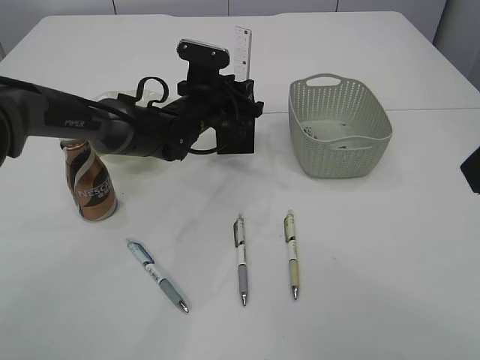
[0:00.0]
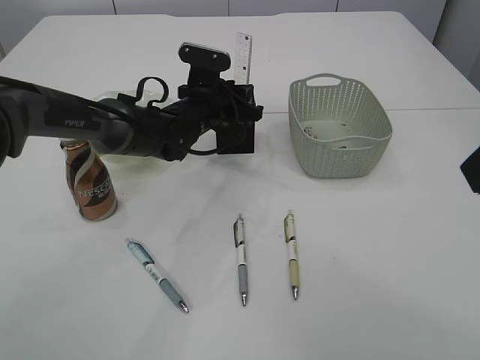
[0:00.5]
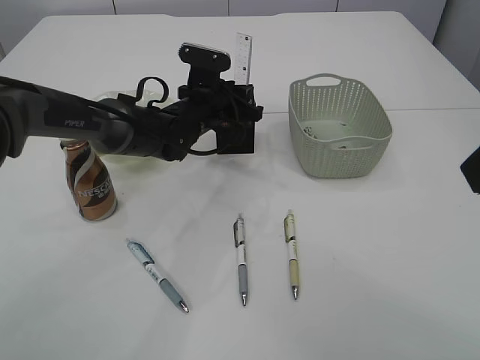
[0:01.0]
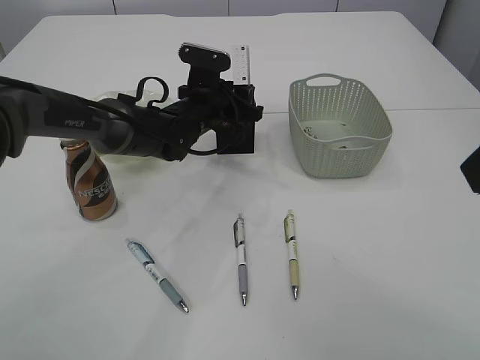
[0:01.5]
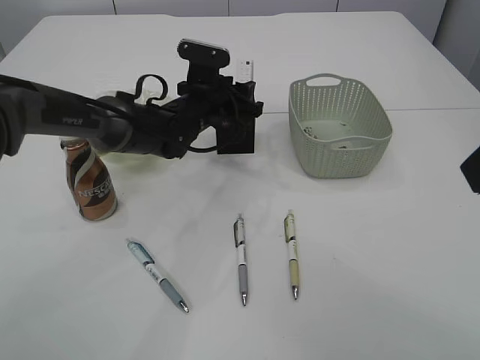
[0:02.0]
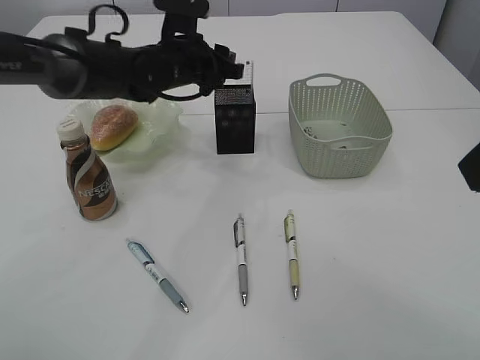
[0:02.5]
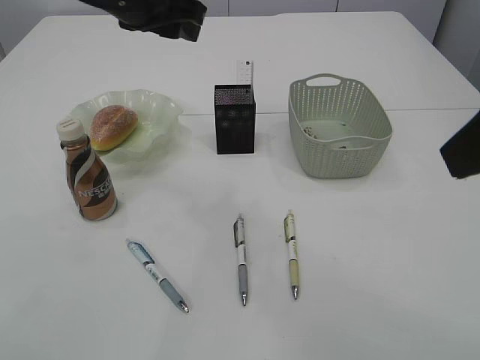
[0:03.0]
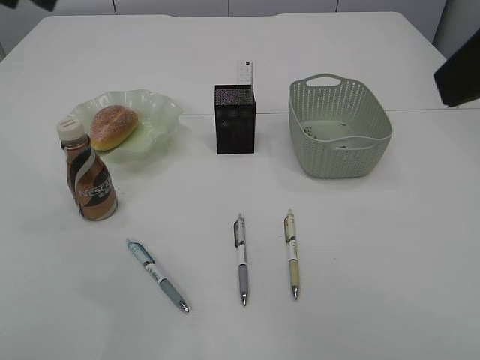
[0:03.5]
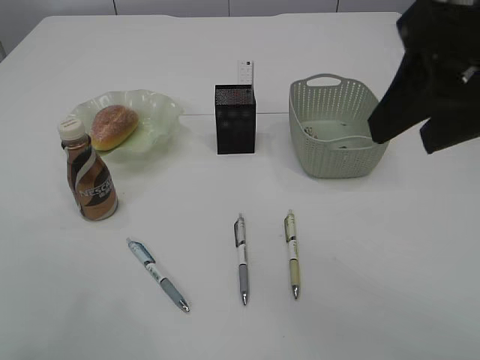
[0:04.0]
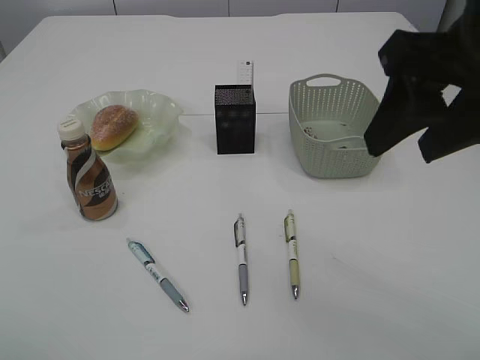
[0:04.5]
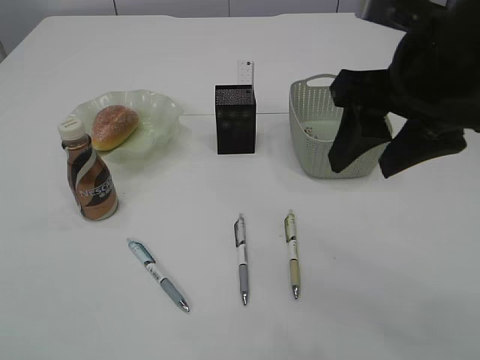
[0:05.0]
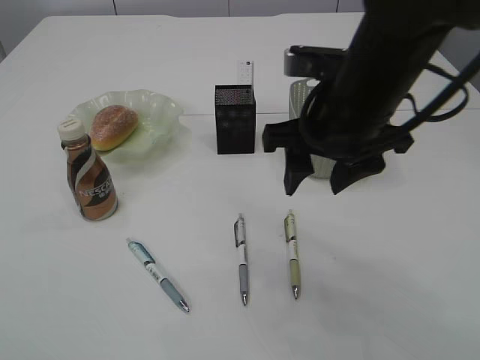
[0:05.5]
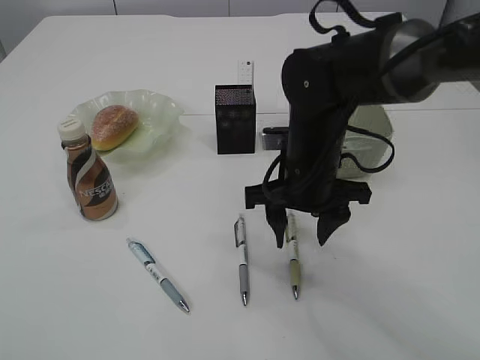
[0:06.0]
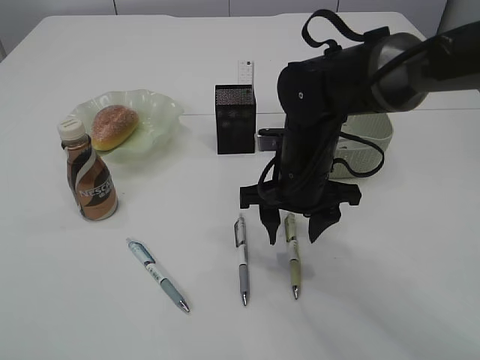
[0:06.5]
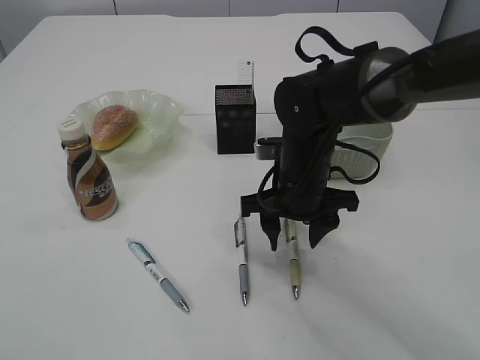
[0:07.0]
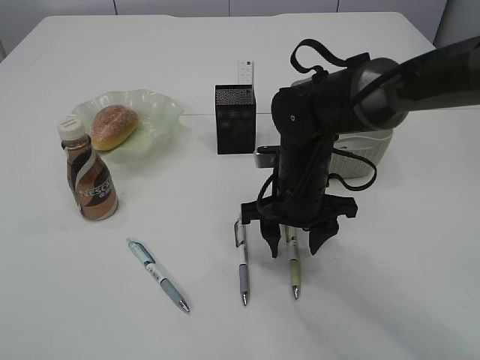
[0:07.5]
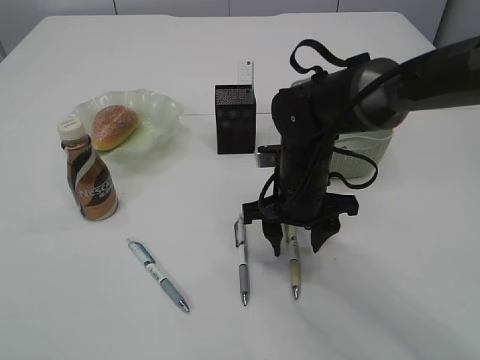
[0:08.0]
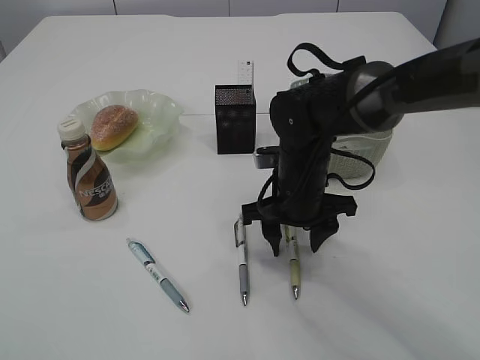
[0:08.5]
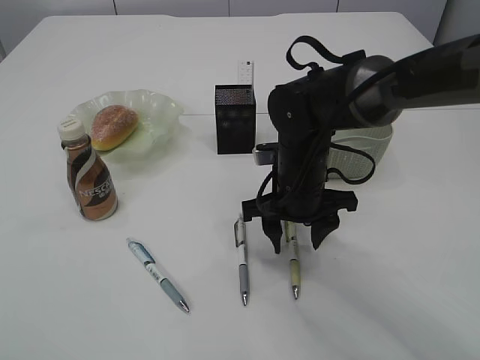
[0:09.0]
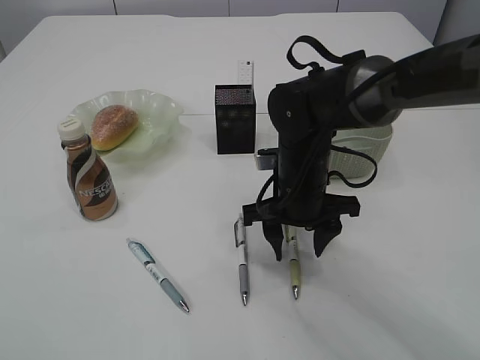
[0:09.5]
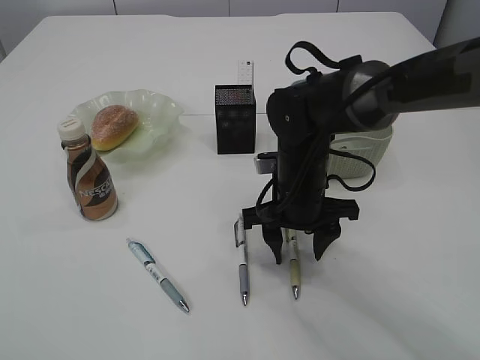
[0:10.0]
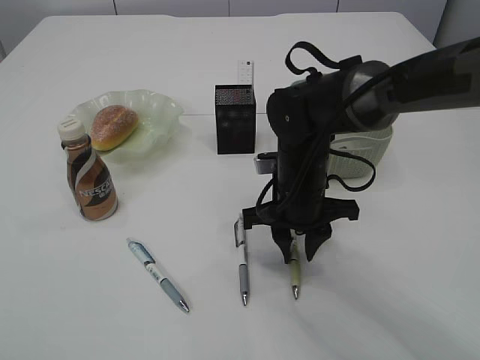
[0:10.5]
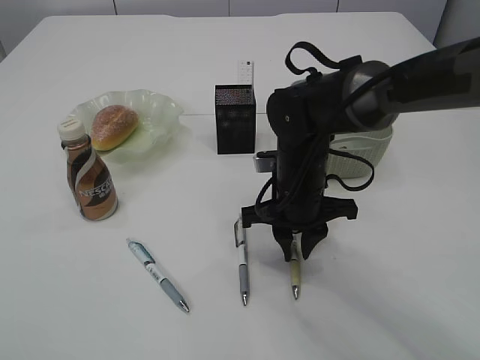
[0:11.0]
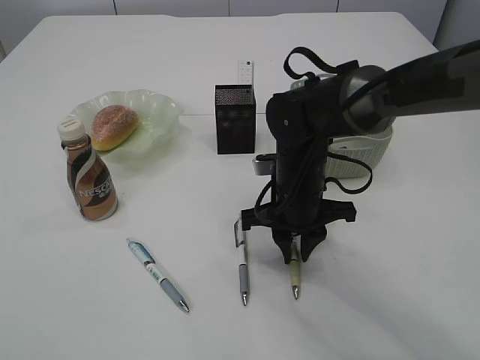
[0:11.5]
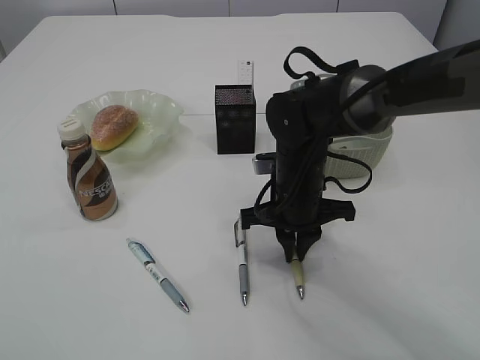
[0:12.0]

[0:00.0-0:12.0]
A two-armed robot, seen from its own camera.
Step, 0:00.0 to 0:02.5: Place the ruler into the pen holder.
0:00.0 to 0:02.0: Both grippers stay about where they are.
0:02.0 to 0:04.0: The right gripper shifts by about 5 cm. Meanwhile the left gripper goes approximately 40 cm upward, backward and to the left.
0:04.0 to 0:06.0: The left gripper goes about 20 cm backward; the right gripper heads downward, forward and to the left, covering about 25 cm.
0:06.0 to 0:08.0: There are only small adjustments of the grippers.
0:08.0 to 0:10.0: The two grippers keep their place.
0:10.0 to 0:12.0: The right gripper closes up.

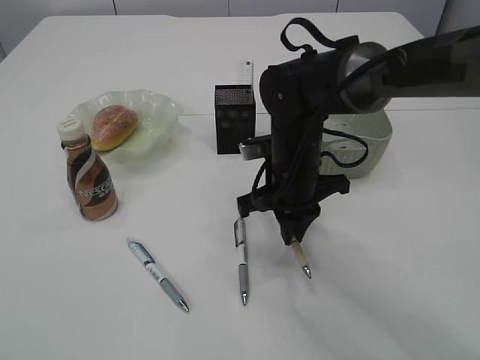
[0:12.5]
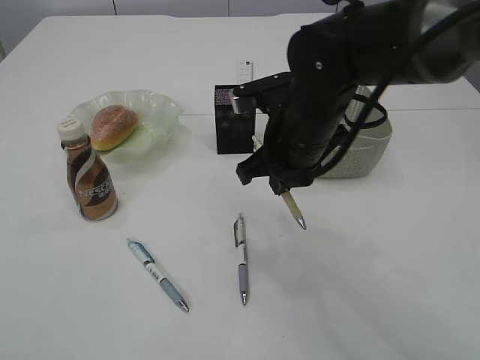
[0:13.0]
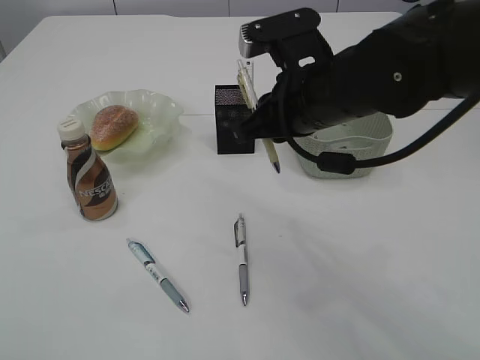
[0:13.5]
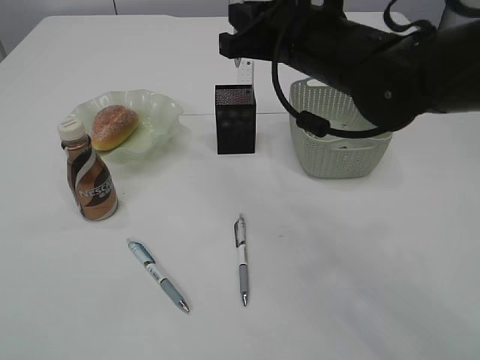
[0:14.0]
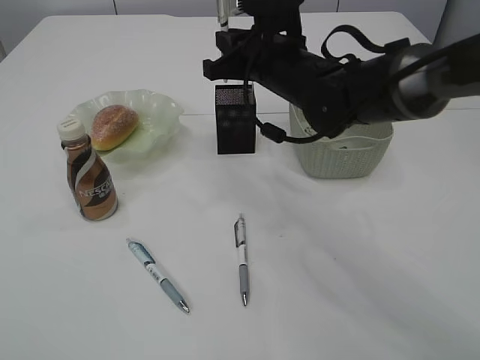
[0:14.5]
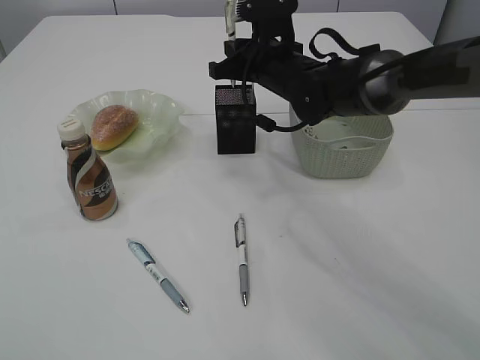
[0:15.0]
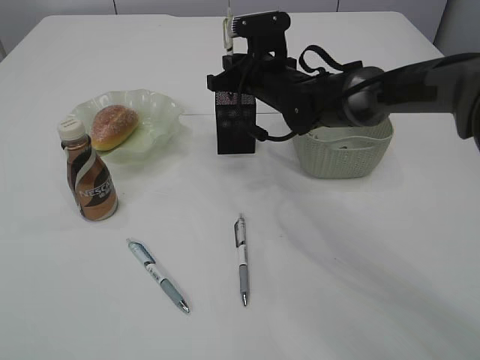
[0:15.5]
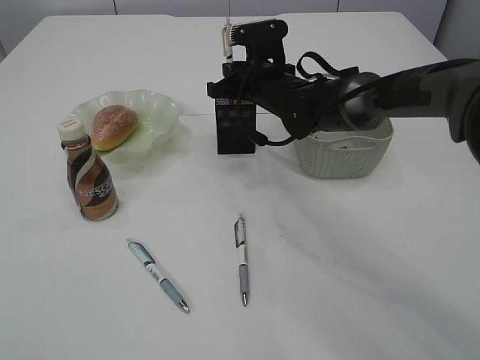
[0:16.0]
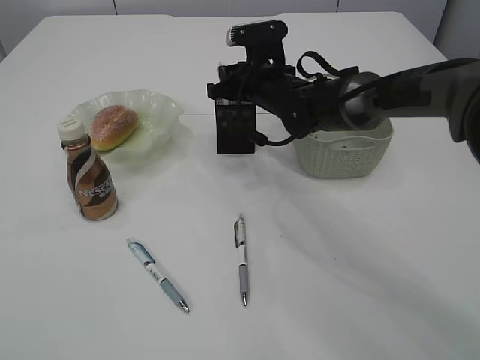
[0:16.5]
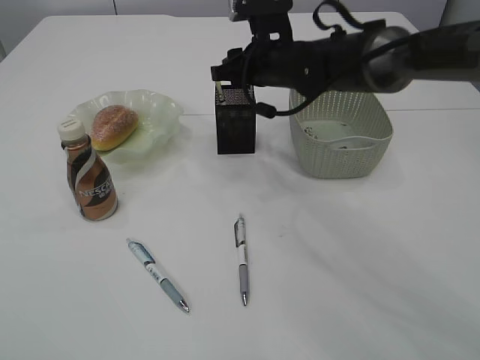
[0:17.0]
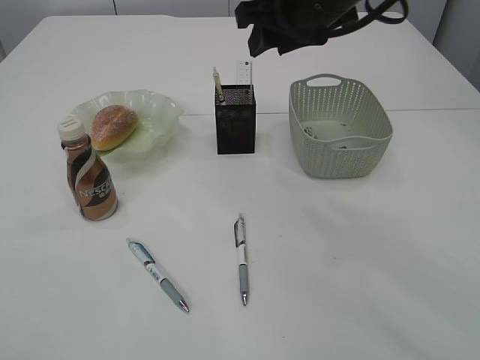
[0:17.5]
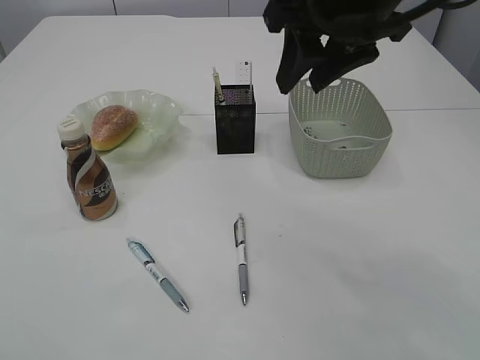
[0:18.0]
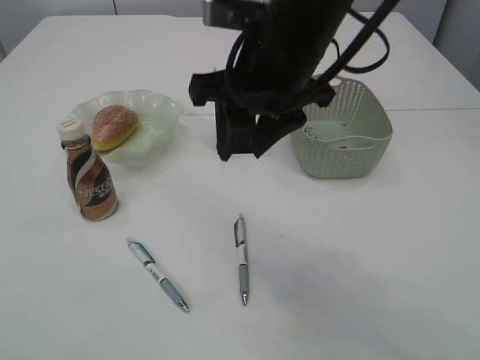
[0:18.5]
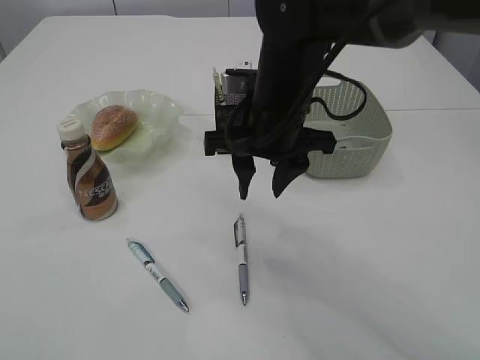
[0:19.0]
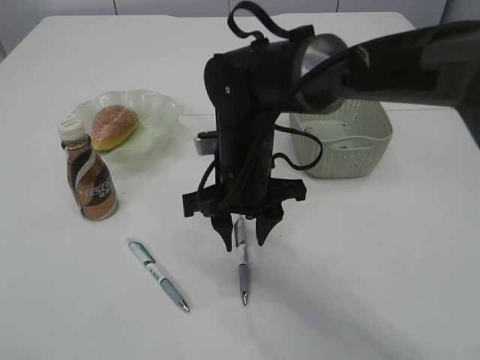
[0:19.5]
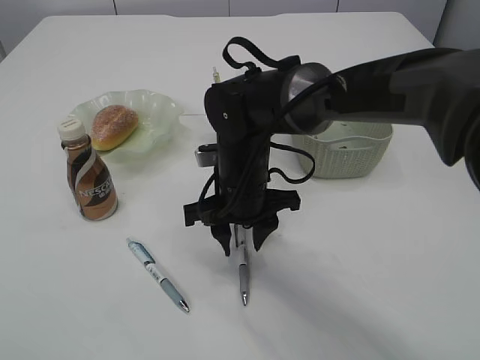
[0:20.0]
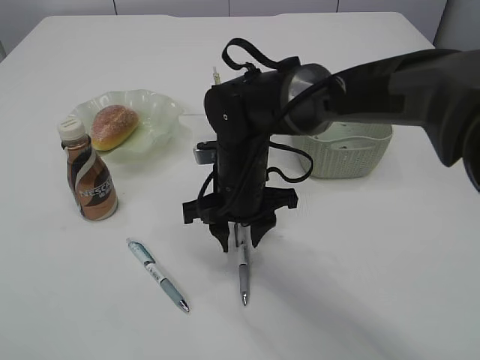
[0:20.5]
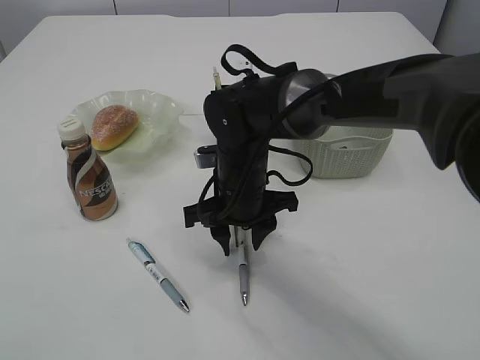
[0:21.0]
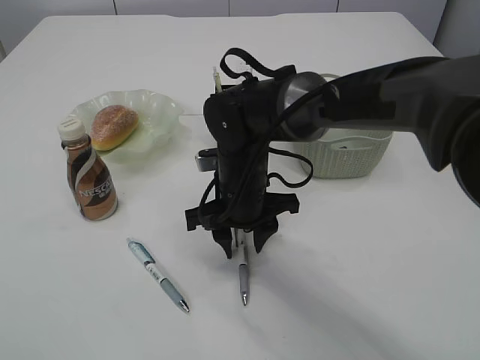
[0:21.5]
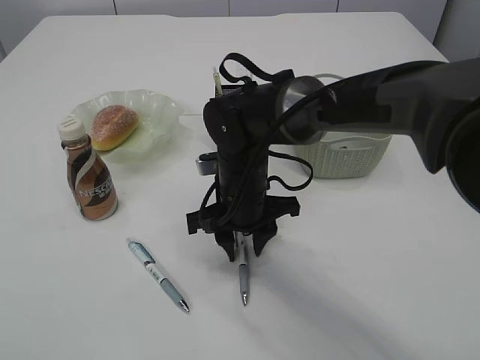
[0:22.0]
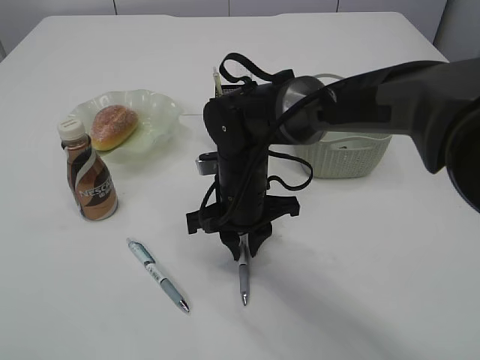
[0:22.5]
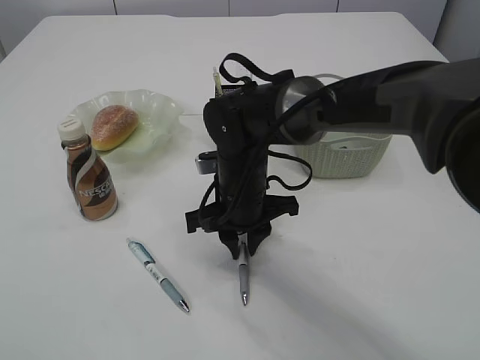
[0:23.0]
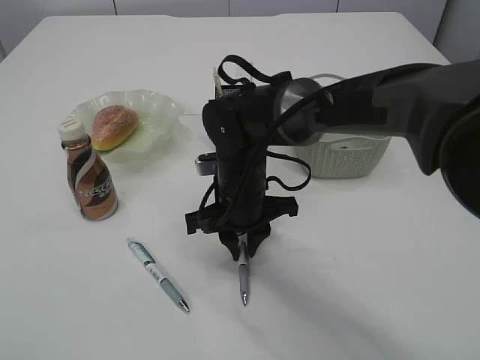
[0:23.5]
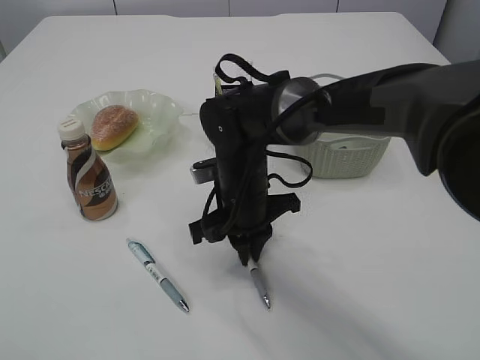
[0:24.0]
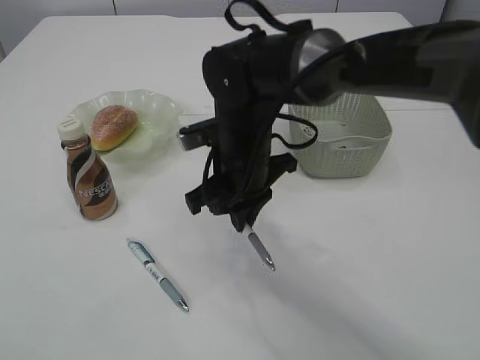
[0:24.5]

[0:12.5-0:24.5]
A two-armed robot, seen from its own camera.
Step, 0:13.0 to 0:17.0: Place the pen into the pen holder.
0:12.5 to 0:14.5: The right gripper is displaced upward and forward by approximately 10 cm.
0:14.5 to 0:16.5: The right gripper shifts some 10 cm forward and downward, and opens its fingers.
0:16.5 to 0:18.5: The right gripper goes roughly 20 cm backward and upward.
0:18.5 to 0:20.5: The right gripper travels downward by approximately 20 cm.
0:20.5 to 0:22.5: The grippers move only a little.
0:22.5 to 0:24.5: The right gripper goes roughly 5 cm upward.

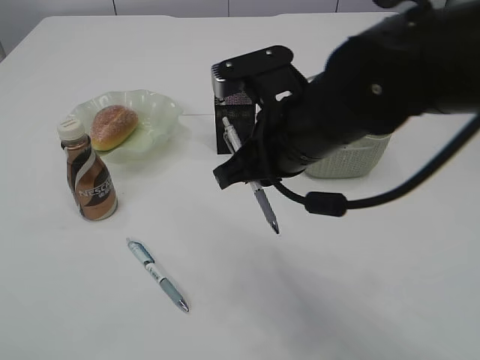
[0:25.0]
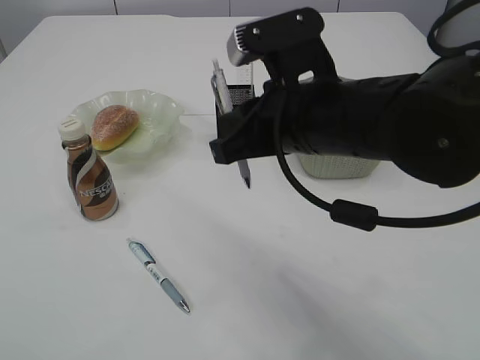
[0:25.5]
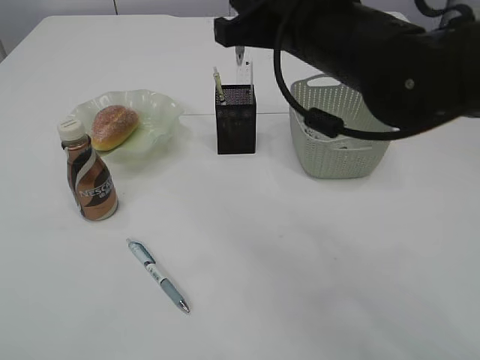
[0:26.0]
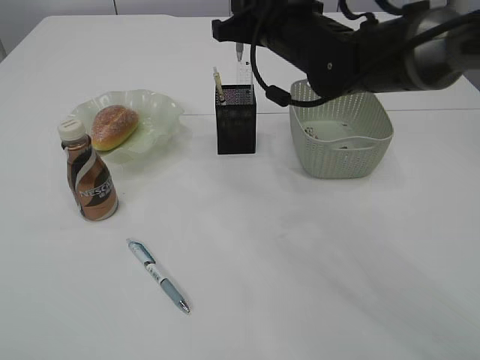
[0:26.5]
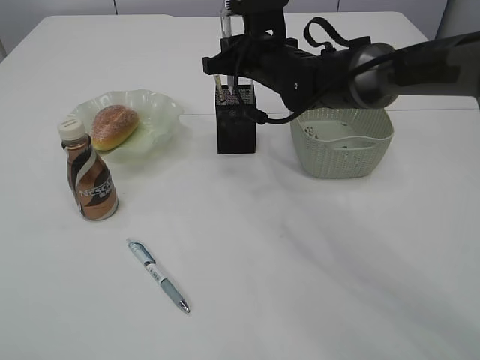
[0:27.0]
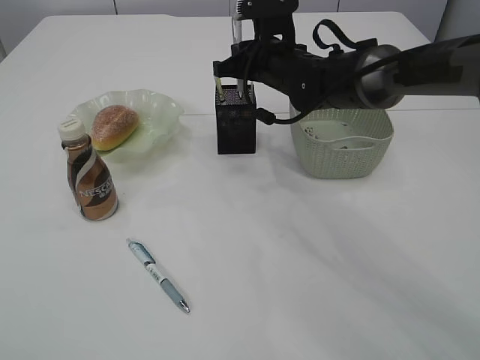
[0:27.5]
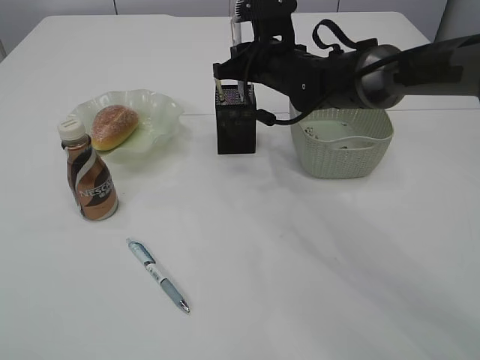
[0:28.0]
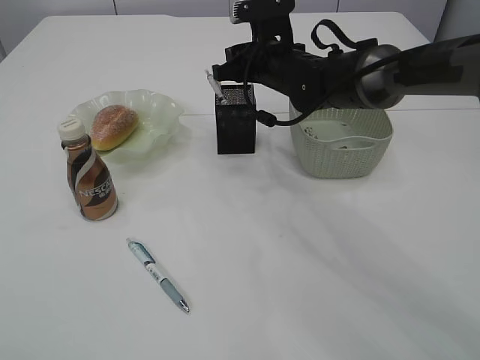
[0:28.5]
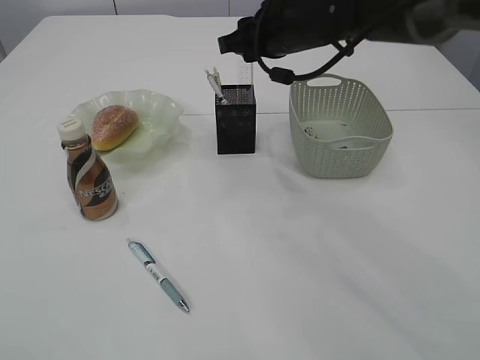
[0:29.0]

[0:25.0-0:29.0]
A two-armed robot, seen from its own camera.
Step, 0:25.0 to 0:29.0: Place the pen into the pen holder.
0:25.0 to 0:27.0: The right gripper travels forward by some 20 cm.
0:27.0 to 0:29.0: The right gripper moves upward, approximately 5 cm, and opens.
